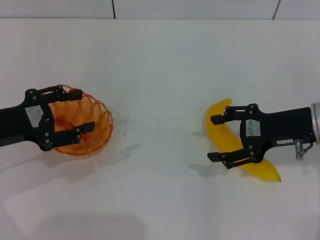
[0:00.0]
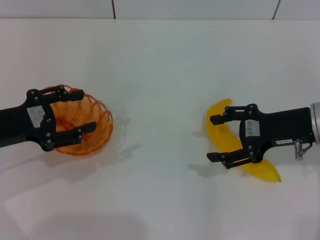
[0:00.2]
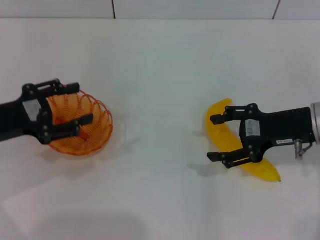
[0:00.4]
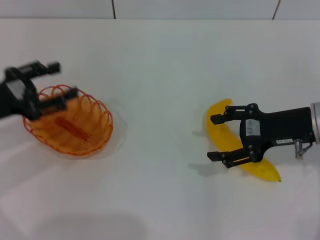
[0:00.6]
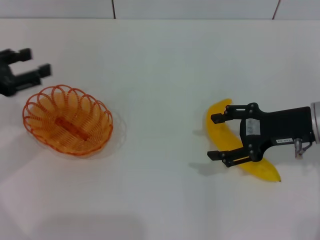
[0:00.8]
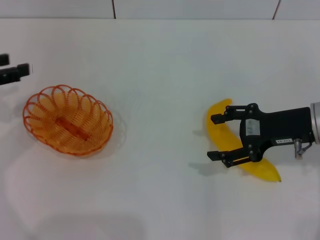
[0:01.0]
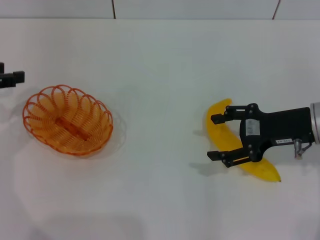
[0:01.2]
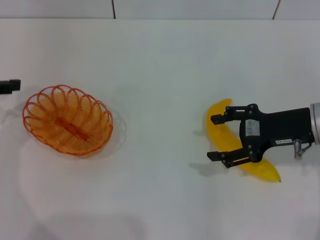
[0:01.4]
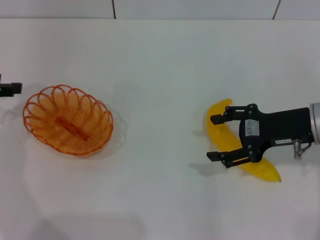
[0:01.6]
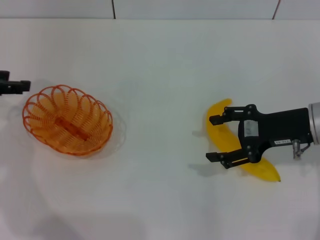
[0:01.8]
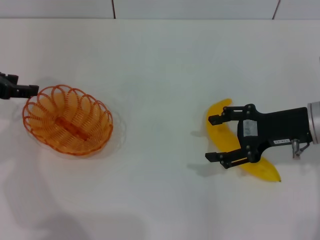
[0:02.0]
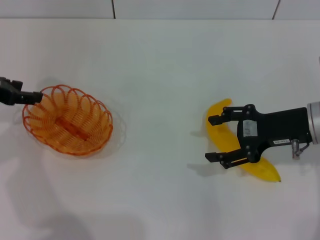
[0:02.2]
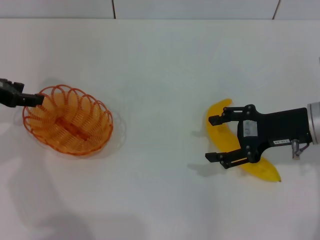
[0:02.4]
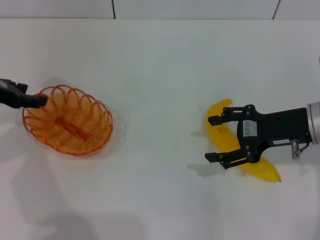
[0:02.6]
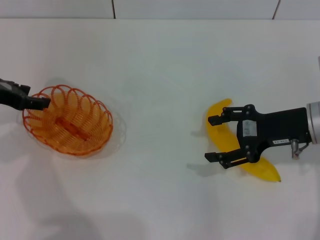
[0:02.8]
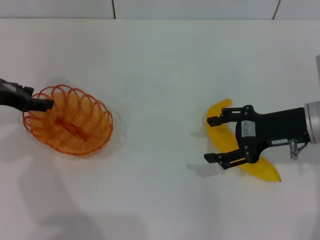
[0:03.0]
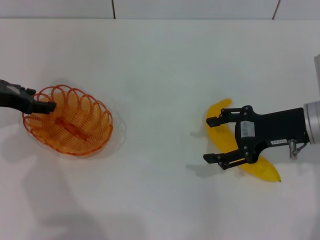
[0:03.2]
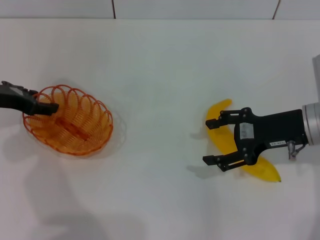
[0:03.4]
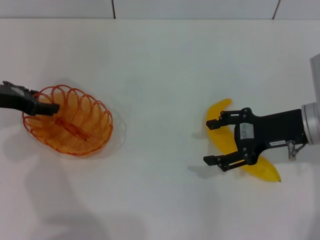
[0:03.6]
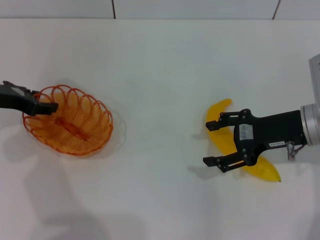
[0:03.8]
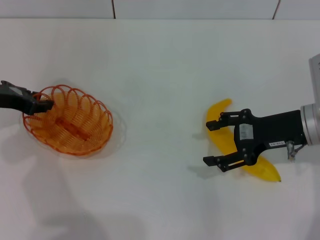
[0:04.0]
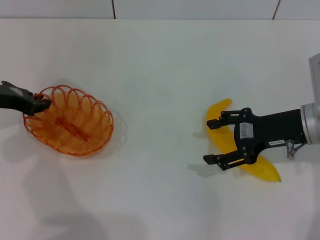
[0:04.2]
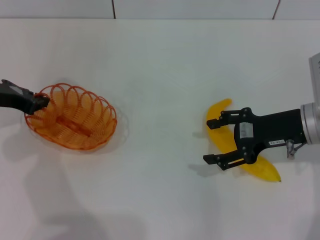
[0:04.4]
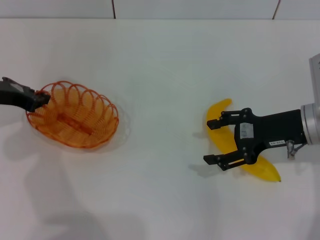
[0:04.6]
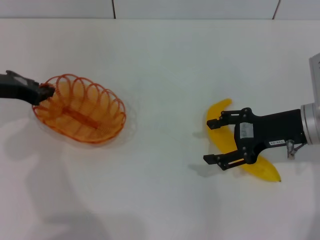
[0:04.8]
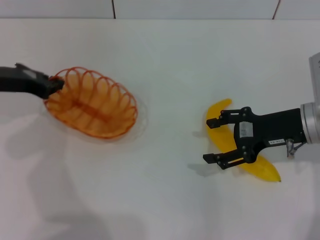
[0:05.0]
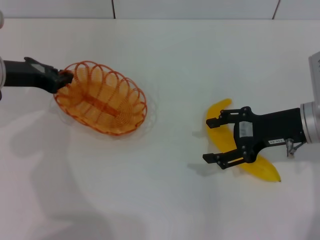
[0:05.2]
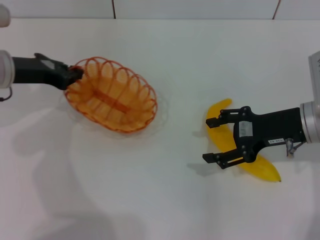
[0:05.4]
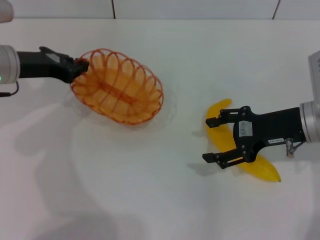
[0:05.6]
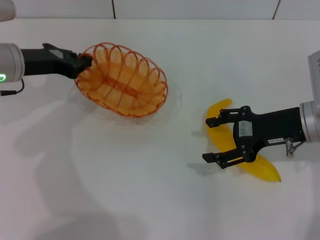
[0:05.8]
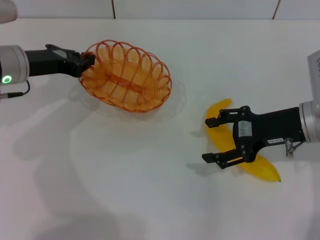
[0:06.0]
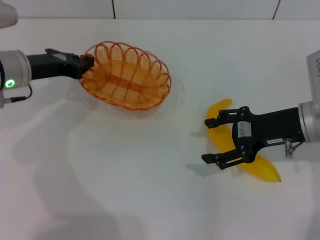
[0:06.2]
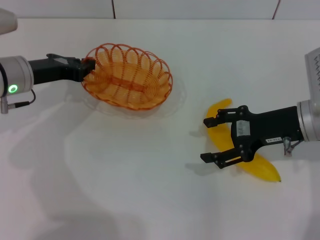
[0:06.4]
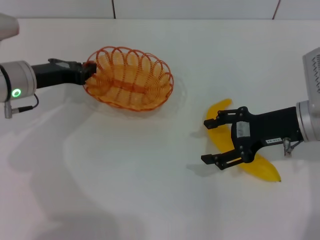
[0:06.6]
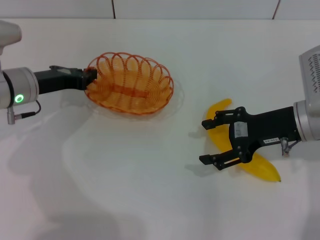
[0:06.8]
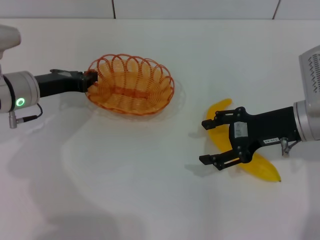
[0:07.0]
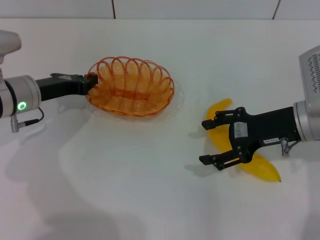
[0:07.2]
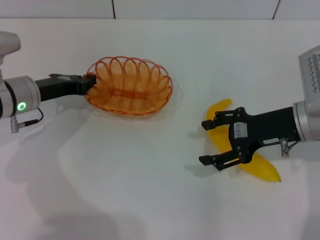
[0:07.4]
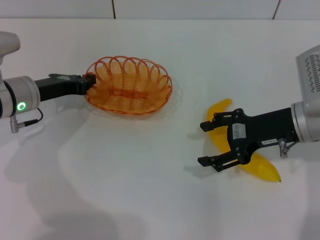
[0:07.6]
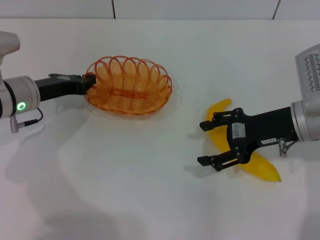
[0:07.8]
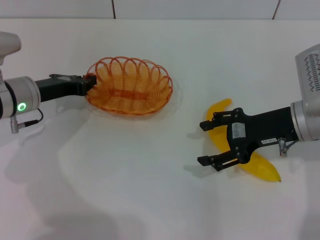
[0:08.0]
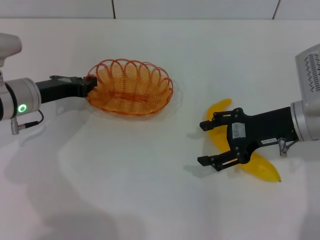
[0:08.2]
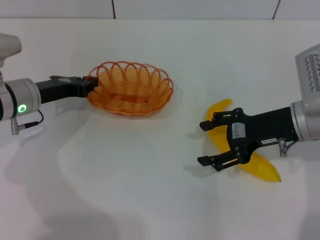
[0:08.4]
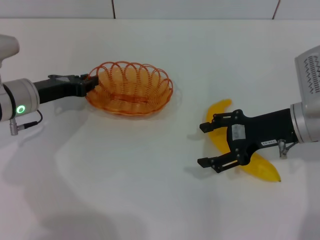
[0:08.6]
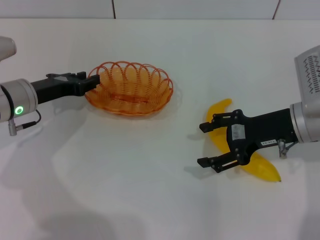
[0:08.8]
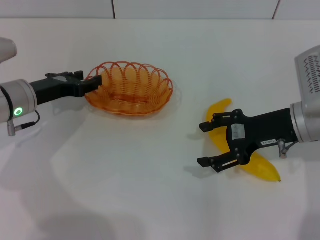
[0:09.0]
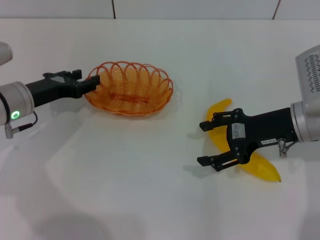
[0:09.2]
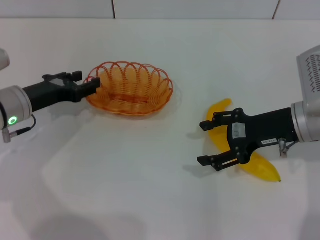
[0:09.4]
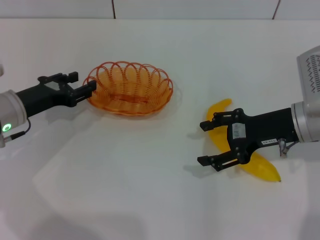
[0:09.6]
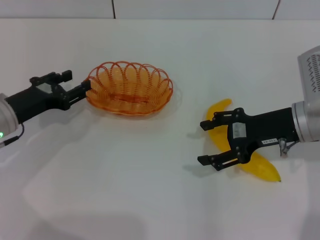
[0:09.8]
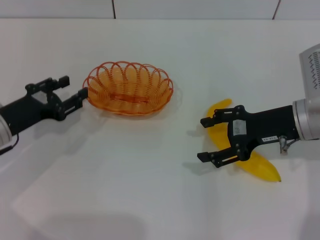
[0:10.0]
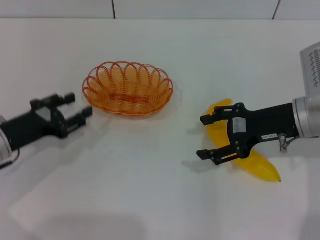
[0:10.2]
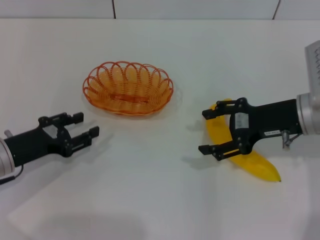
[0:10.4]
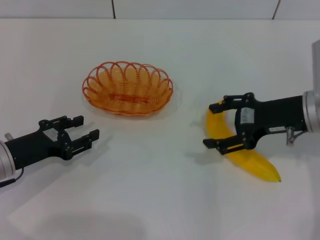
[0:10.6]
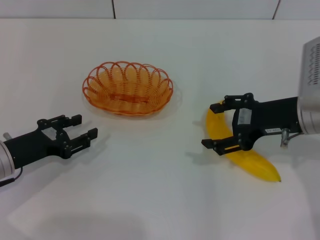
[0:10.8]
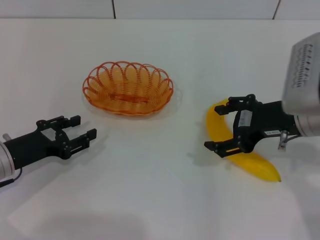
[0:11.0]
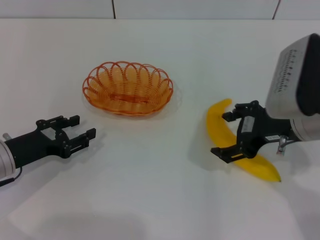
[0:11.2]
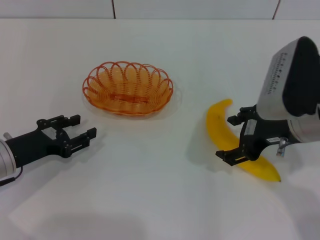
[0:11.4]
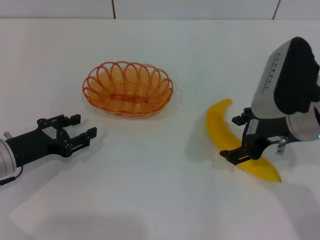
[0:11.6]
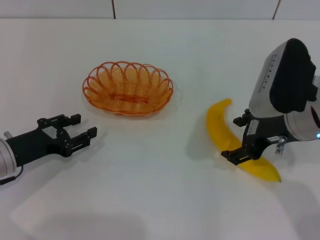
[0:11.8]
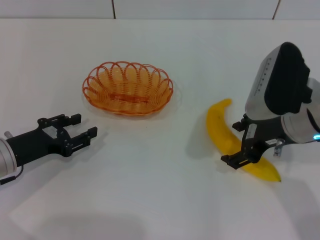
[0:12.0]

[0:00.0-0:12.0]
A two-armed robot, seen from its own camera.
Step, 0:00.0 to 0:05.0: Pick up the basket with the left gripper.
Step, 0:05.2 to 0:09.2: Place the basket in the center of view with the left gripper.
0:00.0 to 0:01.6: The left gripper shifts about 10 cm to the left, forward and upward.
0:01.6 to 0:03.0: The left gripper shifts by approximately 5 cm.
0:03.0 to 0:04.4: The left gripper closes up.
0:04.4 to 0:06.0: The left gripper is displaced to the right by some 5 cm.
0:06.0 to 0:07.6: The left gripper goes approximately 5 cm downward.
0:07.6 to 0:09.0: The left gripper opens its fingers.
0:09.0 to 0:10.4: The left gripper moves backward, about 10 cm.

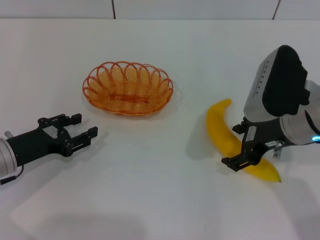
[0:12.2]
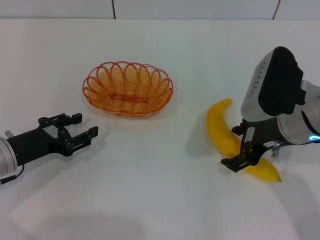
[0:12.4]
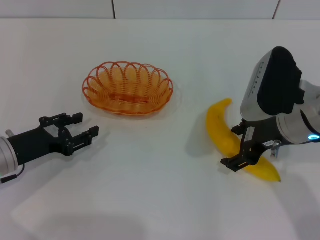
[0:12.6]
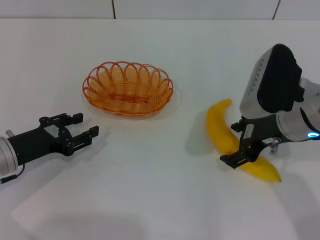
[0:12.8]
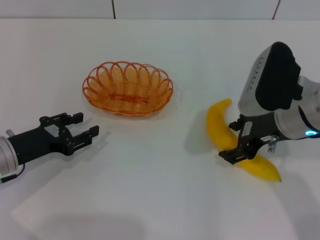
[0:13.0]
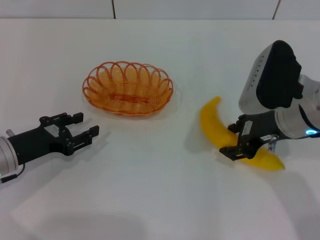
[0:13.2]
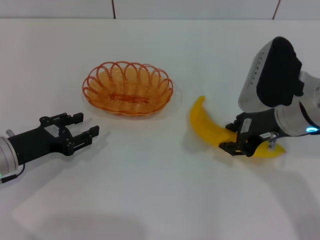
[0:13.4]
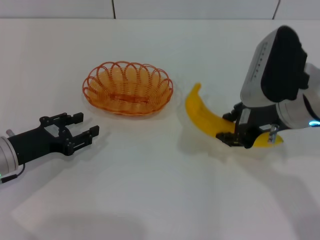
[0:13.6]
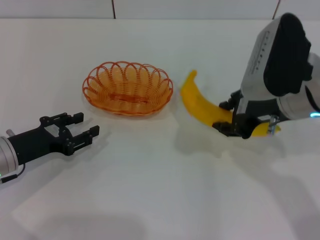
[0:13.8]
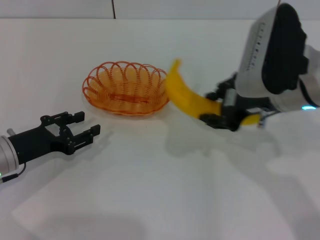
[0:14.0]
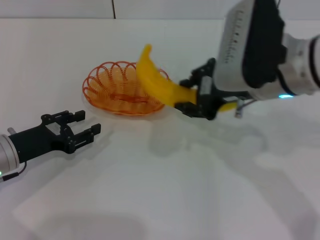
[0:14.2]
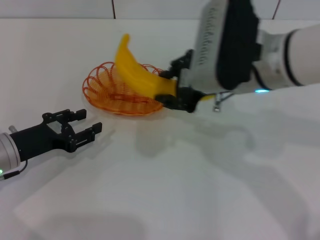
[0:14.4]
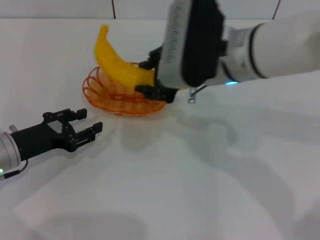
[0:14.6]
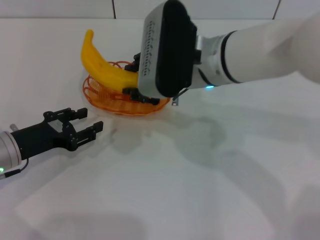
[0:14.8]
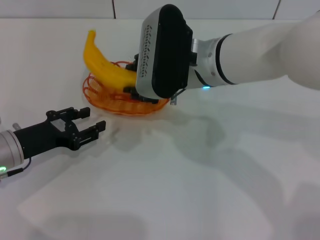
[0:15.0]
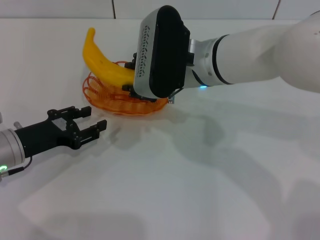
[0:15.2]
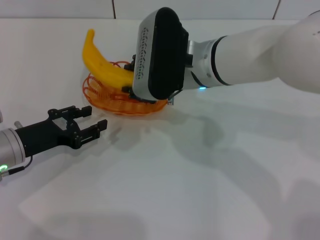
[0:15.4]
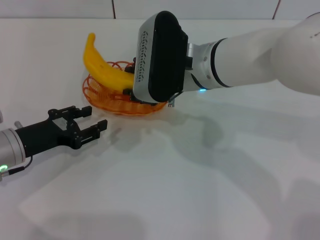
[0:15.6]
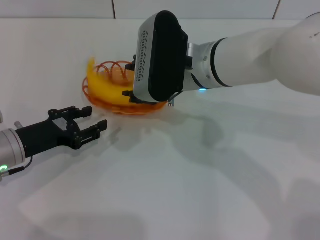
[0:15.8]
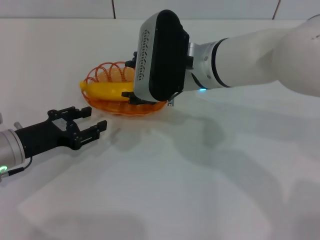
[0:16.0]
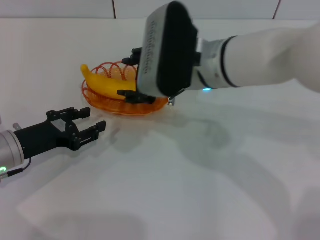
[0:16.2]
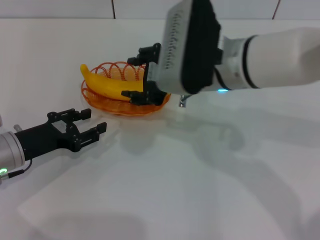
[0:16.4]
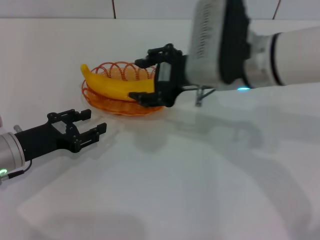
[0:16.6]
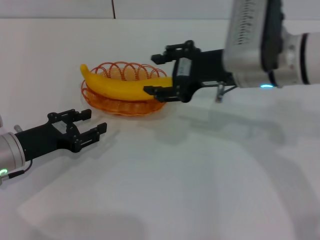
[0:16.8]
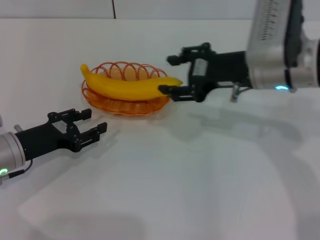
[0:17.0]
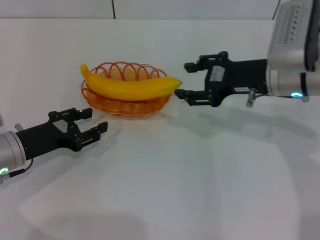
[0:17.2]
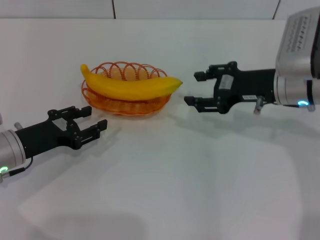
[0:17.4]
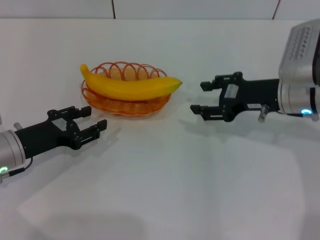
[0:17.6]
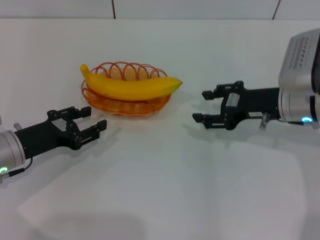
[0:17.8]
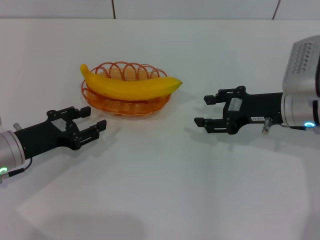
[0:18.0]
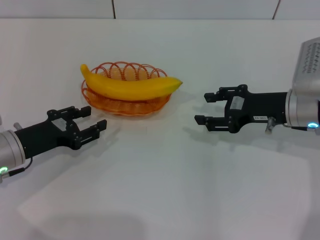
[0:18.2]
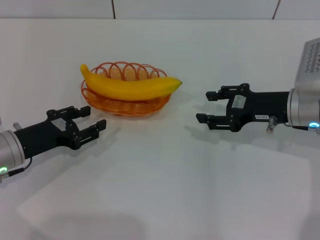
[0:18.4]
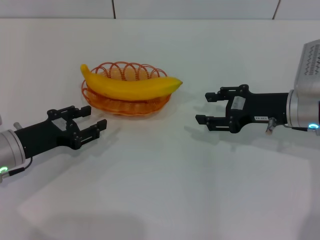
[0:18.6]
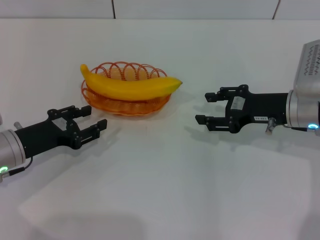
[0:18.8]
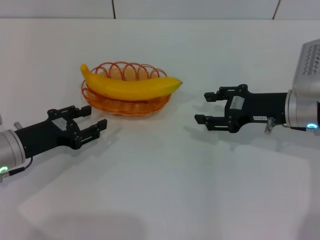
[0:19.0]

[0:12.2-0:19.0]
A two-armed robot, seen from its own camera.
Step, 0:14.0 to 0:16.2: Place the banana into the basket with the right gripper.
0:12.2 to 0:13.6: The right gripper closes its fingers.
0:13.6 to 0:15.0: The right gripper heads to the left and forward, covering roughly 15 cm.
0:15.0 to 0:16.2: The right gripper opens its fingers.
0:16.2 to 0:17.6: The right gripper heads to the right, covering about 15 cm.
0:17.6 to 0:19.0: The grippers make only small movements.
